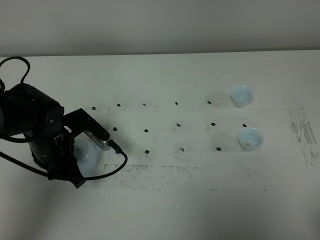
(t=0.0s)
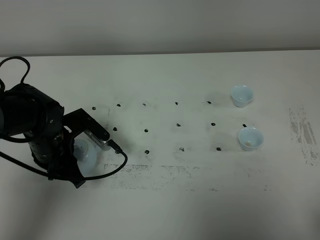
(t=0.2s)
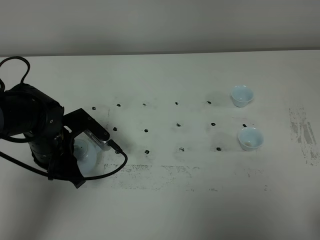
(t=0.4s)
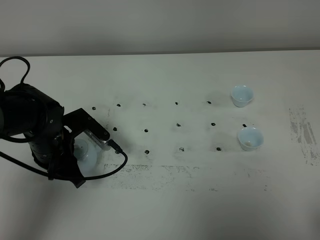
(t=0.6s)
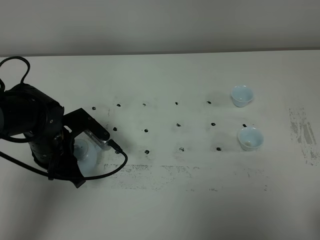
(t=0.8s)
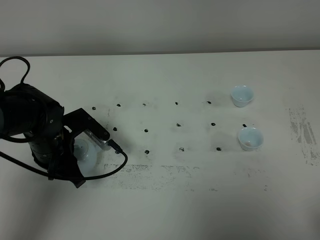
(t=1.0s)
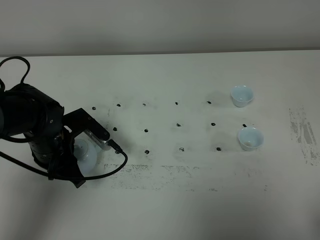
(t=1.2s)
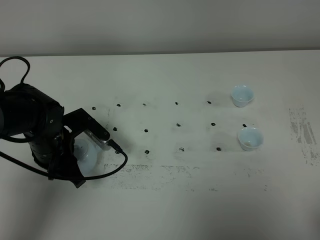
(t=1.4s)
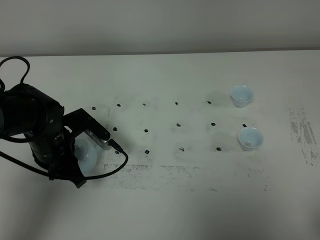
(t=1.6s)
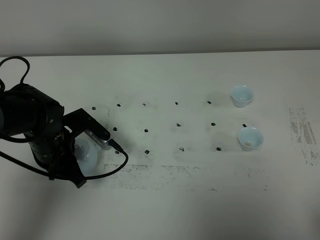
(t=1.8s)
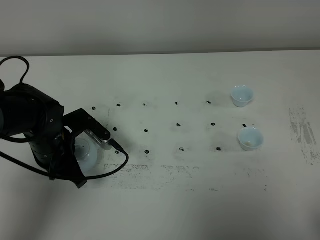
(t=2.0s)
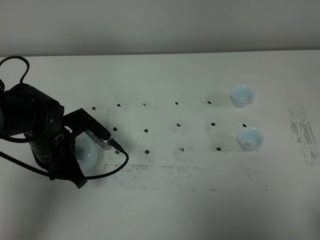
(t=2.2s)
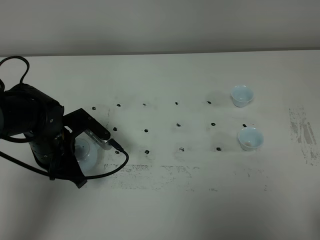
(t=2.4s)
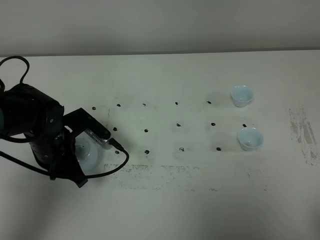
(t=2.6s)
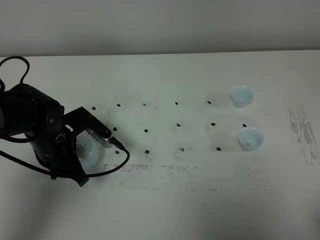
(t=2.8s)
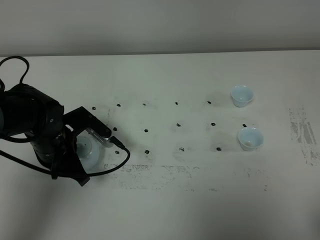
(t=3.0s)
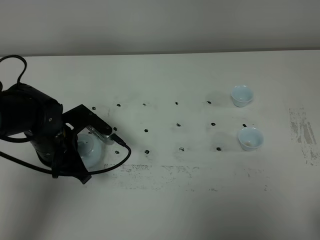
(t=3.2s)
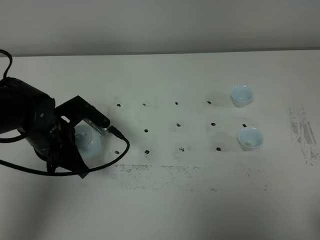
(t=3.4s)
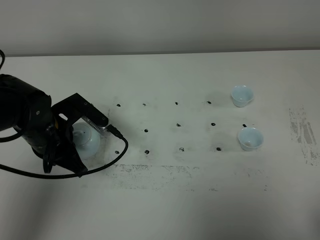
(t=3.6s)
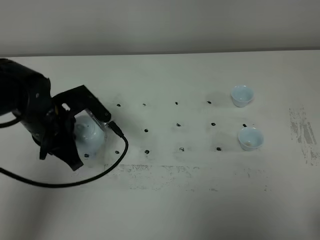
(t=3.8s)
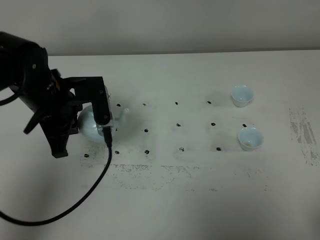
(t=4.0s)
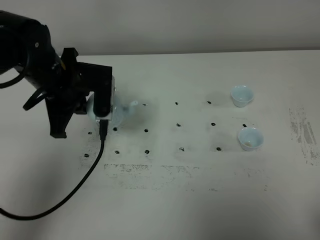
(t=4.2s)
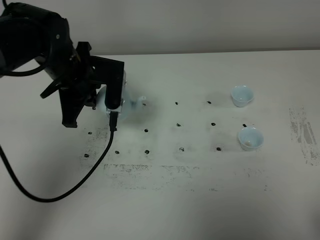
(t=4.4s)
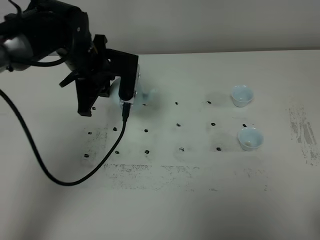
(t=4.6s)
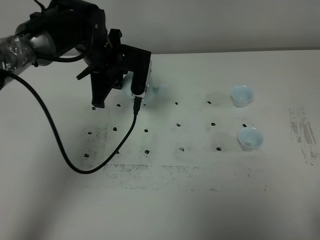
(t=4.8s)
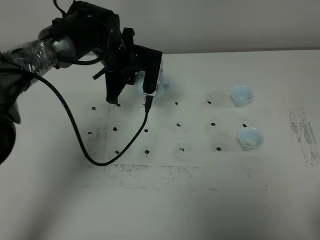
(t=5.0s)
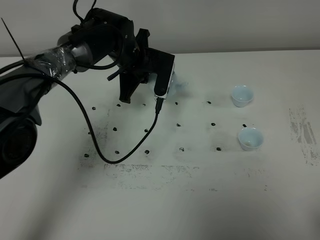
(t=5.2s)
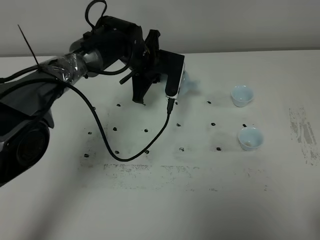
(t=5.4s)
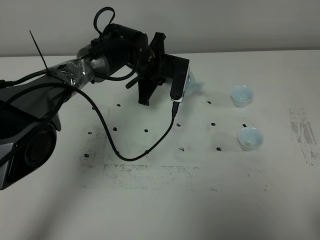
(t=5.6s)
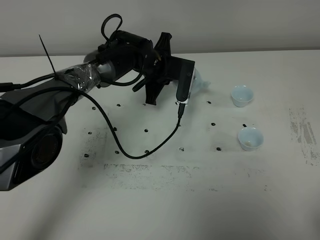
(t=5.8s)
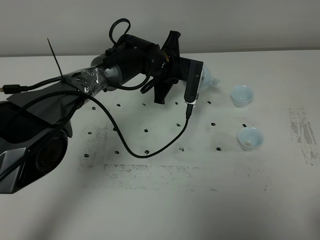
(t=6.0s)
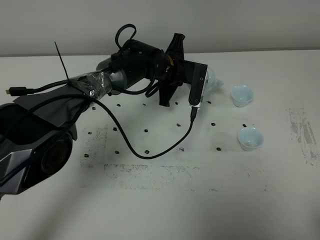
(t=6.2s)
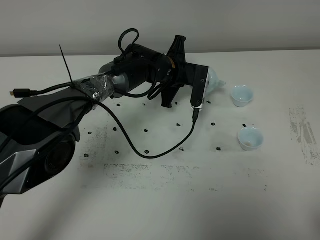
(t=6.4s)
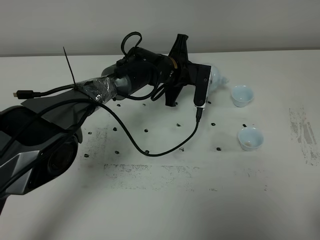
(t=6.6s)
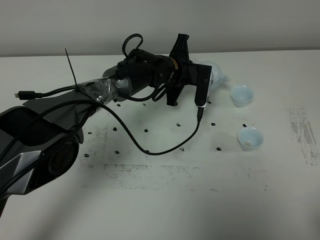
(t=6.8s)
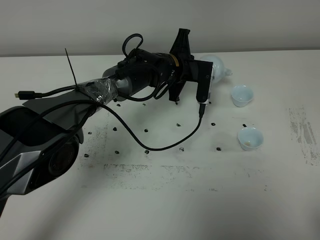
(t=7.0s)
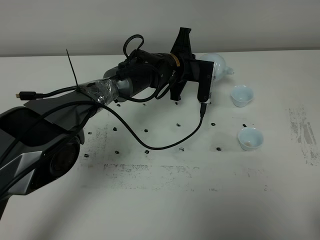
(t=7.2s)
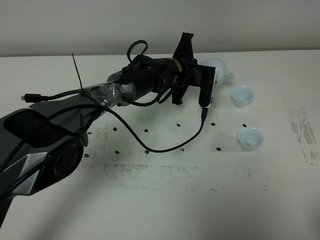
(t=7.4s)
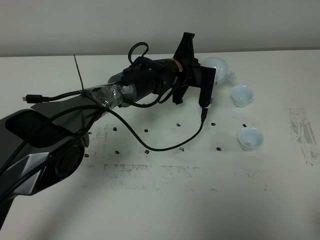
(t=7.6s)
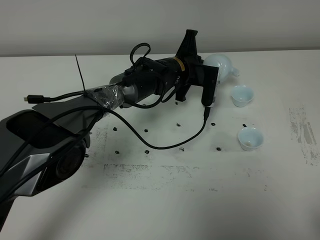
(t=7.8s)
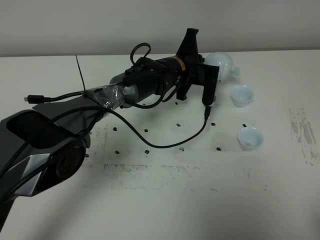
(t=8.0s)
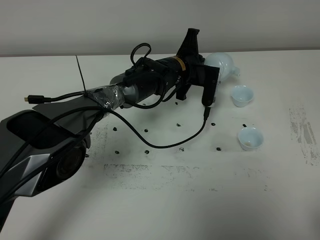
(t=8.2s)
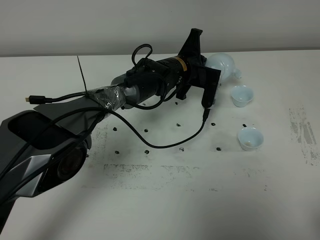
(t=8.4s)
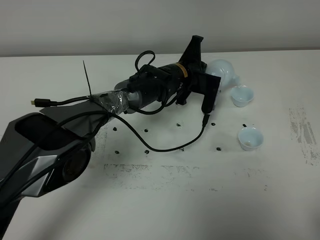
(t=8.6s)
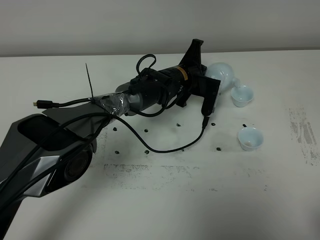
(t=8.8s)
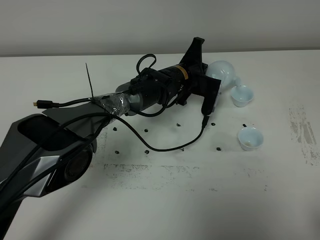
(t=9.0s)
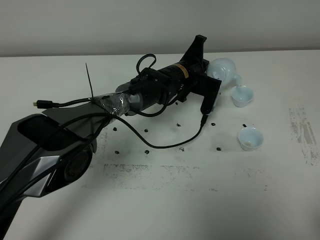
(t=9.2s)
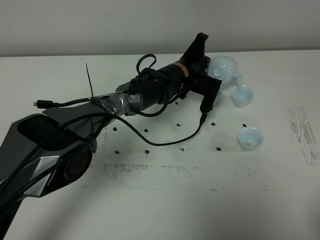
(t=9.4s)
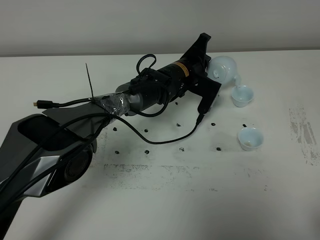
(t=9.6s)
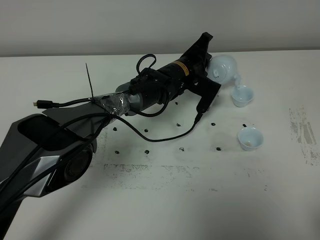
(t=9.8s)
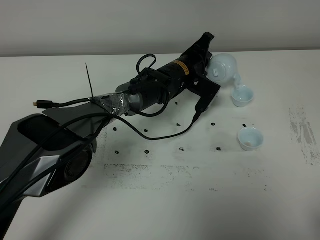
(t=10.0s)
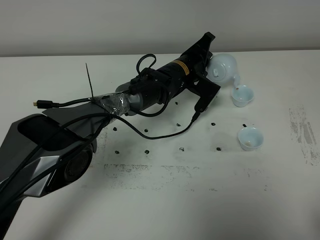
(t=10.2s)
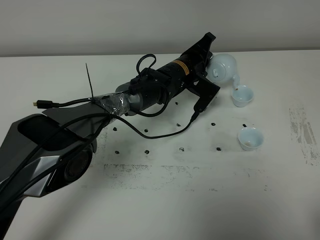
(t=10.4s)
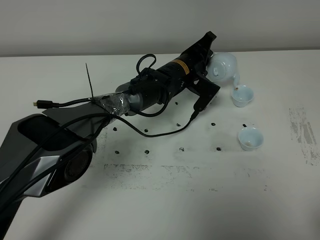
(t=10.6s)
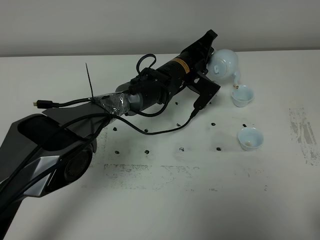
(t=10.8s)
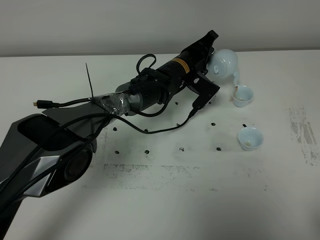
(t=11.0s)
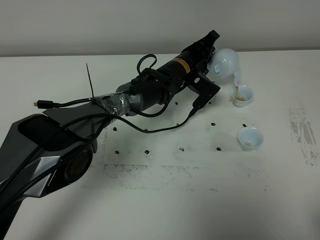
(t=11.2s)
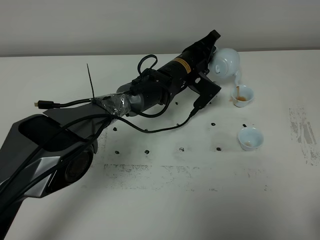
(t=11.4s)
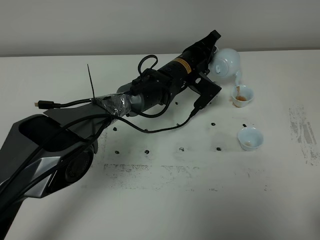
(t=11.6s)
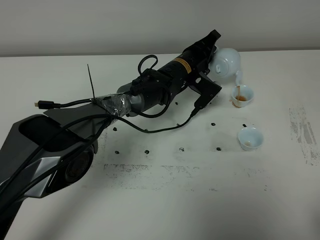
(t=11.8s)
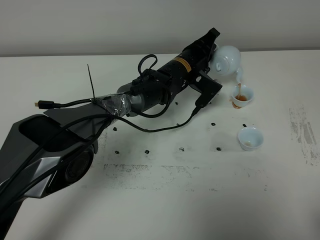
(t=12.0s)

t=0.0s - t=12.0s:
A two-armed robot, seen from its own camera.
Task of the whole recording: grasp the blue porcelain teapot and pour the tea into the two blue porcelain teacups one by one, put the blue porcelain teapot back in its original place.
Step, t=0.0s - t=3.6s: Pick up the teapot with the left gripper.
t=0.0s - t=3.0s: Both grippers stay put.
t=3.0s - t=4.4s: The left gripper goes roughly 15 cm upward and forward.
t=4.4s - t=6.0s: The left gripper goes some 20 cm to the right, forward and downward.
t=6.0s - t=7.6s: The grippers stay close to where they were, moving slightly.
t=7.6s - t=9.0s: There are only small adjustments of the grippers.
t=10.4s - t=12.0s: There are only small adjustments of the grippers.

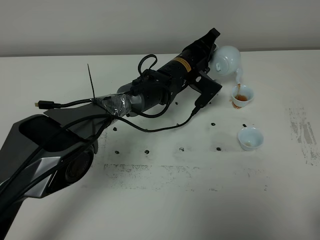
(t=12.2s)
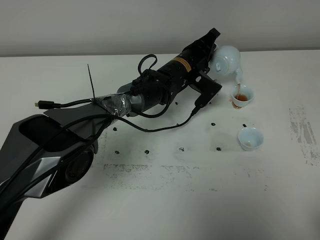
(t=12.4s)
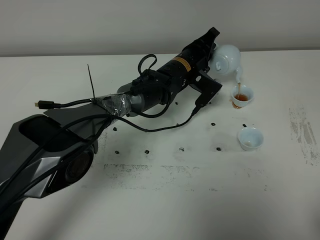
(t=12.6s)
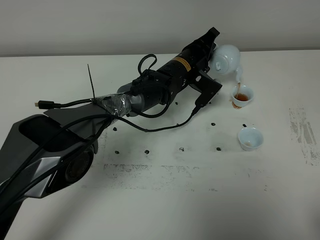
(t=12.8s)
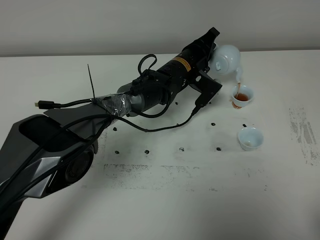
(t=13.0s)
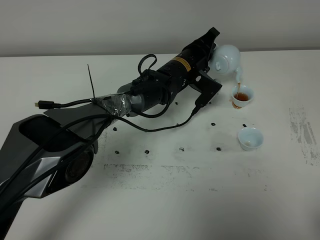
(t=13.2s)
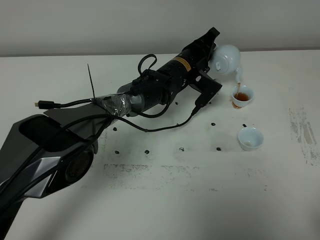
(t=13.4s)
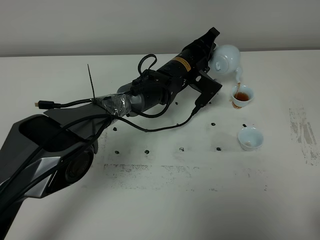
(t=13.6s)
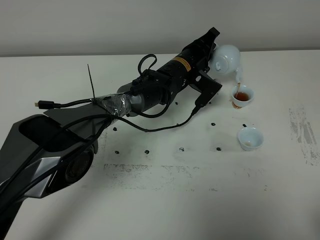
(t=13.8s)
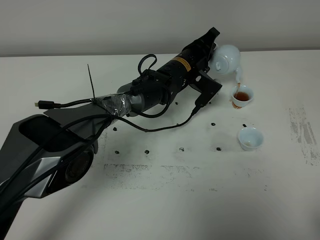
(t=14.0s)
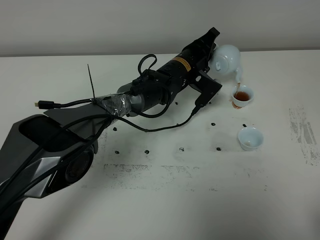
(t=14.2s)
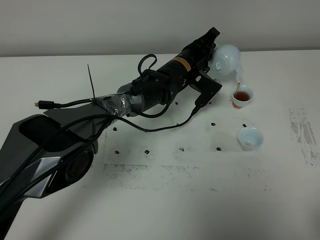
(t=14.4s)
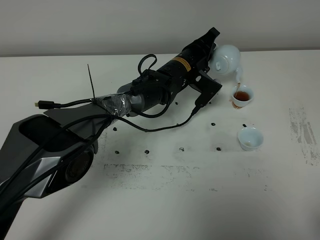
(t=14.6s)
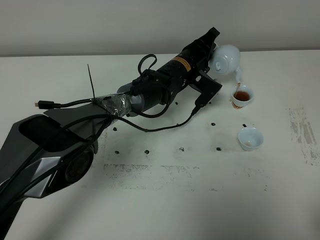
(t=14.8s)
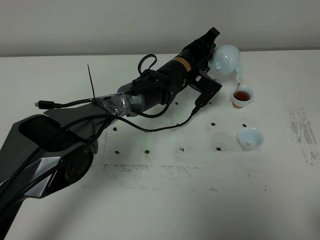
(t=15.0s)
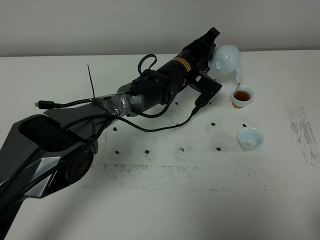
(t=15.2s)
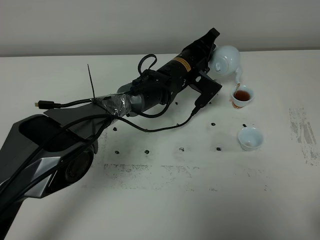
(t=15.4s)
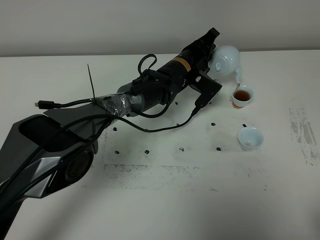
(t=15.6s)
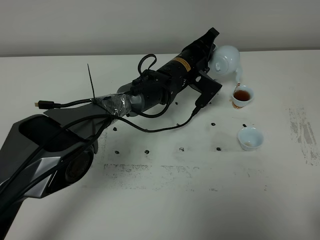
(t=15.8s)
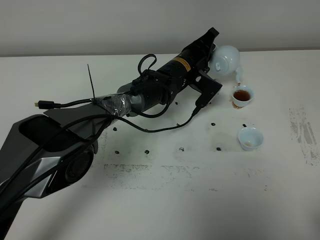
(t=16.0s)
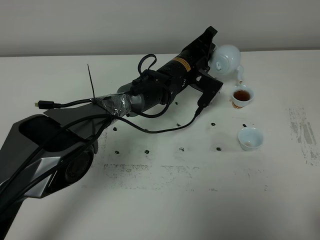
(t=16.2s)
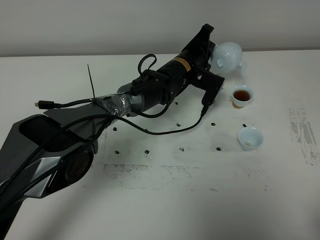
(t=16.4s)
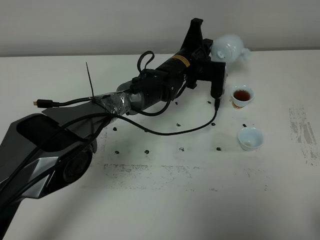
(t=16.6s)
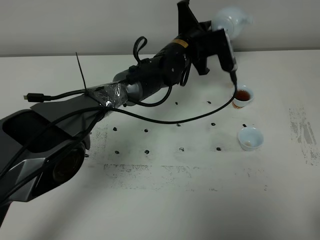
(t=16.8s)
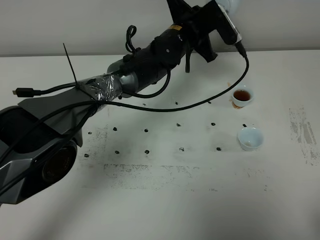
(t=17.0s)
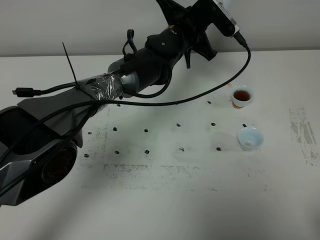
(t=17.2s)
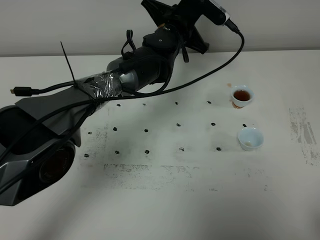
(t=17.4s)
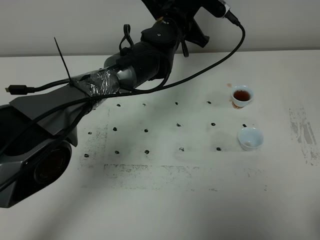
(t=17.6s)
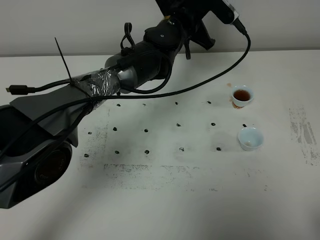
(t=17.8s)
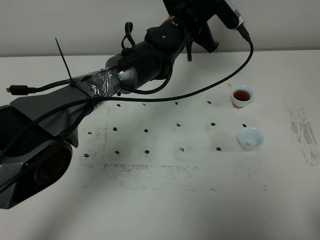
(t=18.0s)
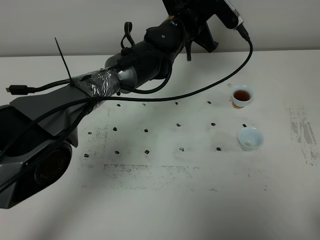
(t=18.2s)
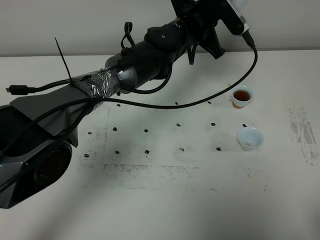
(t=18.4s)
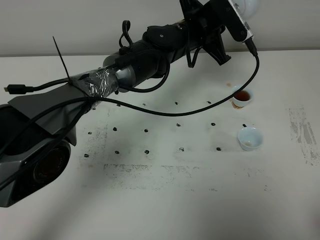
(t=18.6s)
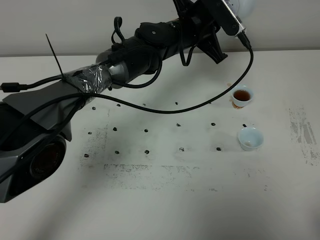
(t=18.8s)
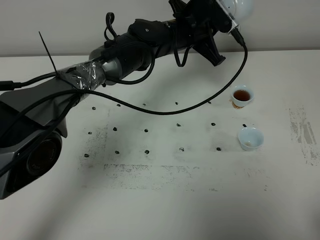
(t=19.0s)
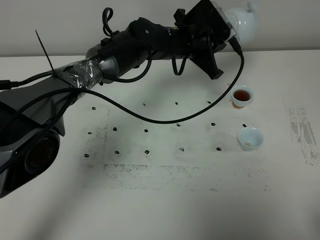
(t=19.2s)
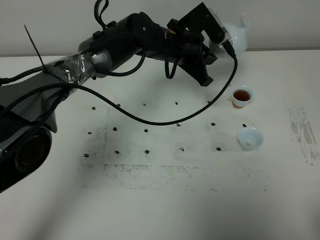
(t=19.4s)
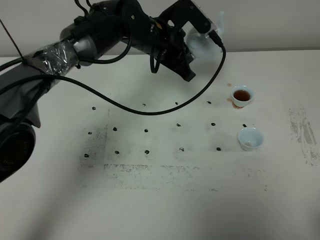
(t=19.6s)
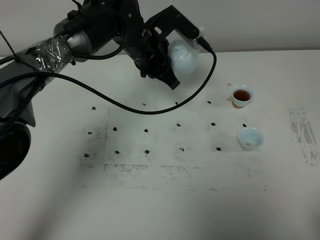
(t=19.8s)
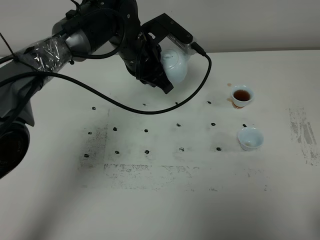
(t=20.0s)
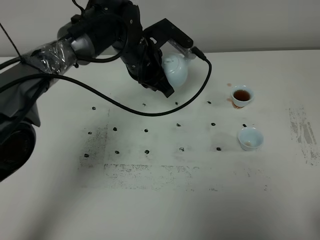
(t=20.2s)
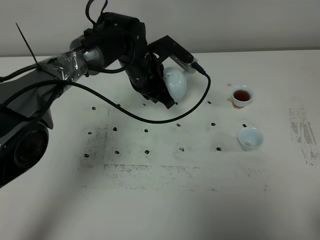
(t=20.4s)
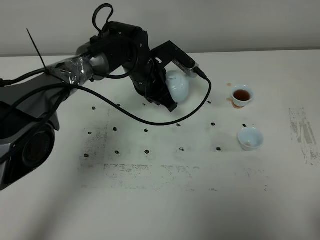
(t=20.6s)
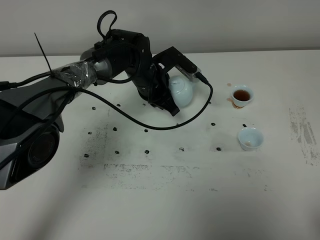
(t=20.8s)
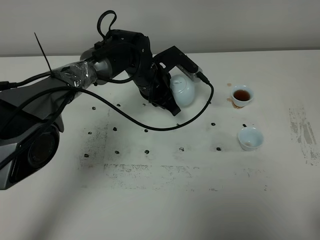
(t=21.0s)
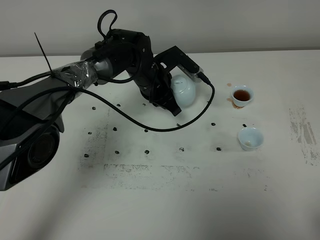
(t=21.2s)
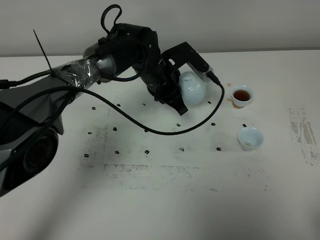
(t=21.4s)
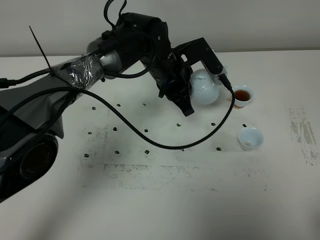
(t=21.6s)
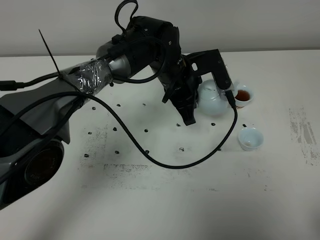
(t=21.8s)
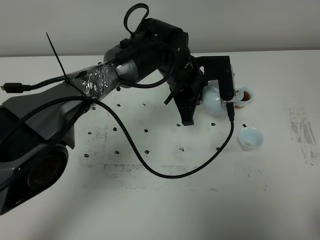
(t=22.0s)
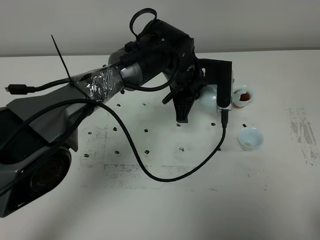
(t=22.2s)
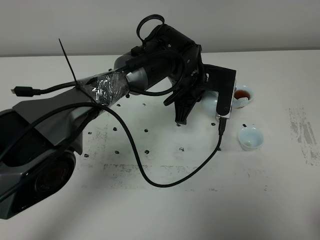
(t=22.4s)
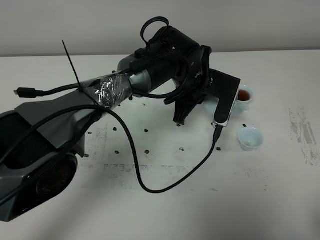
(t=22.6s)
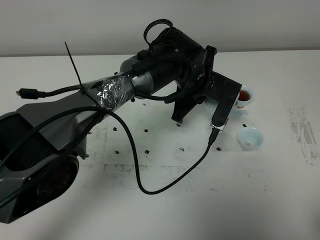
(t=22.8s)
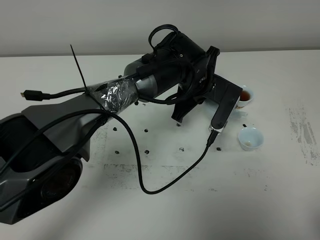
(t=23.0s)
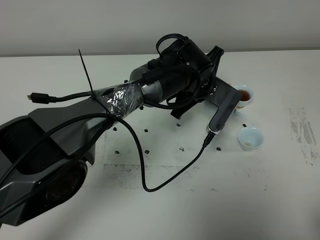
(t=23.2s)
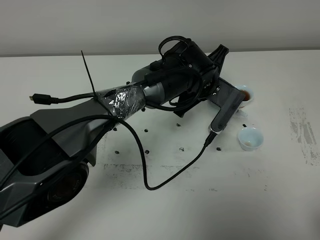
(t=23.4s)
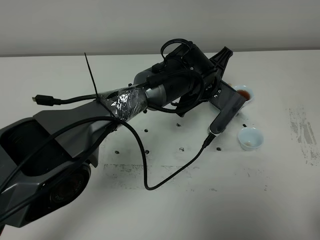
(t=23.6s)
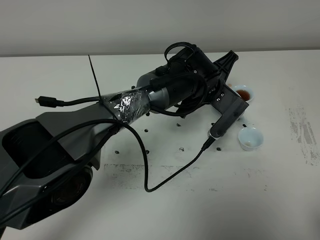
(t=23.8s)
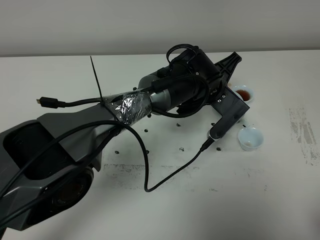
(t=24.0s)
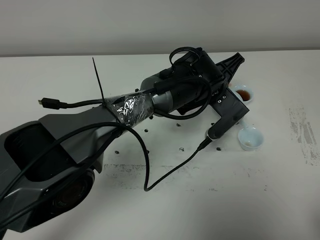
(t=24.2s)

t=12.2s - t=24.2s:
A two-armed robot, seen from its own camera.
Task of the whole recording: grasp the blue porcelain teapot and pour the tea into the two blue porcelain teacups one by one, put the blue porcelain teapot back in its original place.
t=12.2s - t=15.2s: The two grippers keep their place.
t=16.6s - t=18.2s: The left gripper goes some 10 cm upward.
t=18.2s - t=19.8s: The left gripper moves to the left, some 5 cm.
t=19.8s - t=21.2s: The left gripper is displaced downward by some 10 cm.
t=21.2s - t=22.6s: The left gripper travels to the right and backward by approximately 10 cm.
